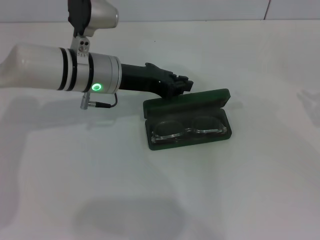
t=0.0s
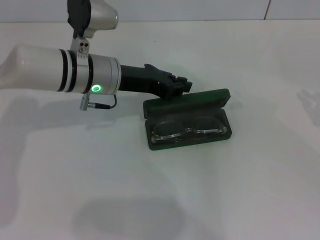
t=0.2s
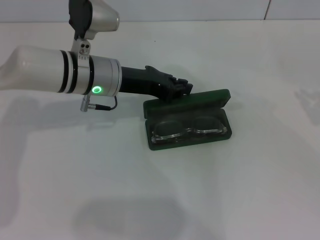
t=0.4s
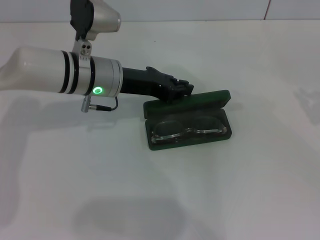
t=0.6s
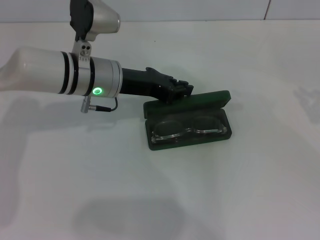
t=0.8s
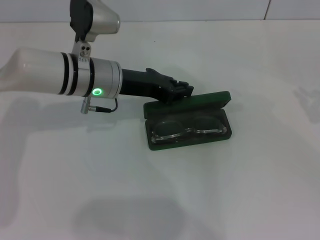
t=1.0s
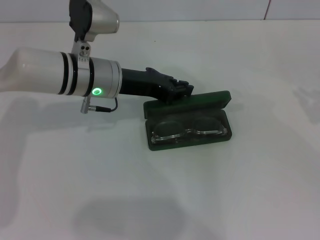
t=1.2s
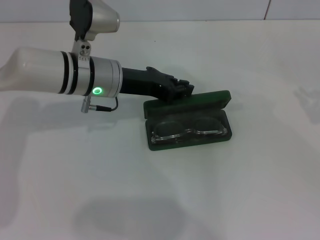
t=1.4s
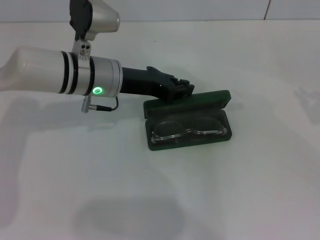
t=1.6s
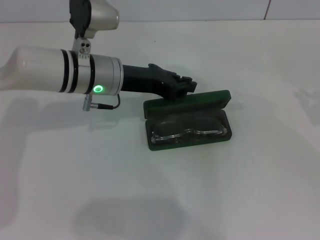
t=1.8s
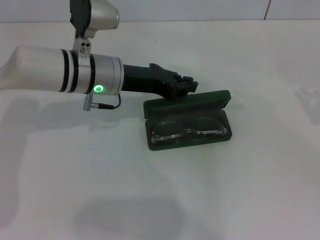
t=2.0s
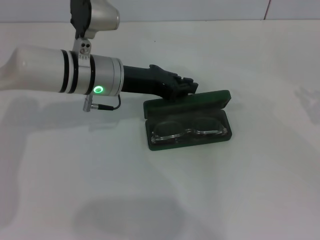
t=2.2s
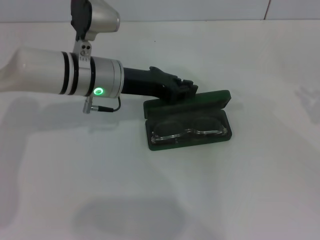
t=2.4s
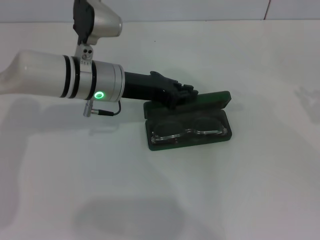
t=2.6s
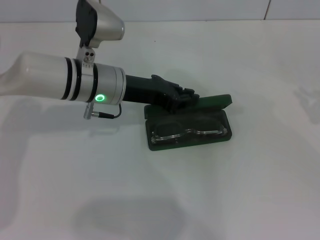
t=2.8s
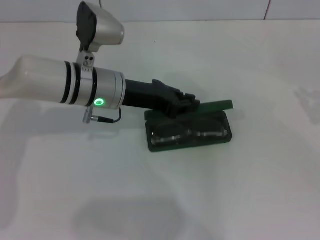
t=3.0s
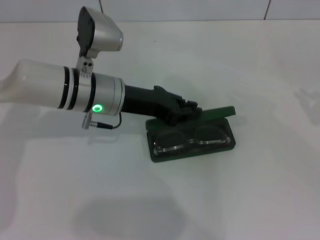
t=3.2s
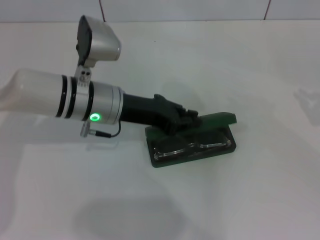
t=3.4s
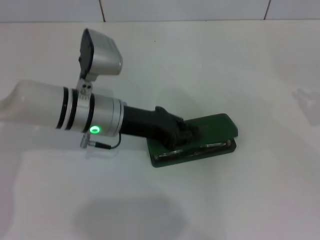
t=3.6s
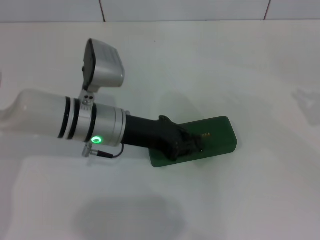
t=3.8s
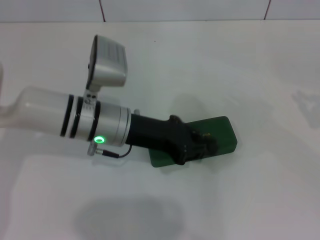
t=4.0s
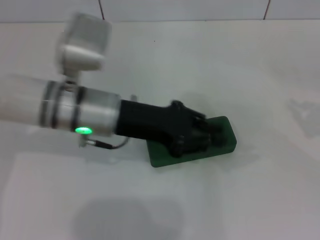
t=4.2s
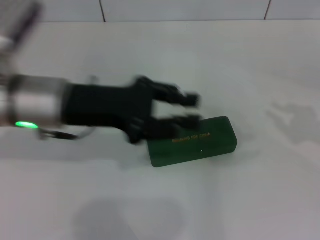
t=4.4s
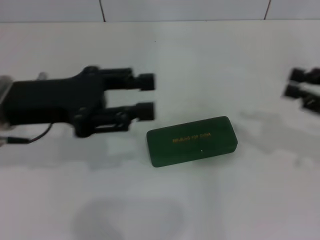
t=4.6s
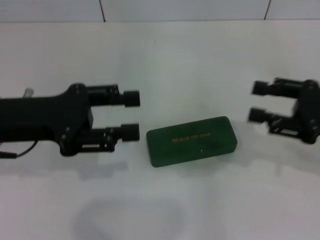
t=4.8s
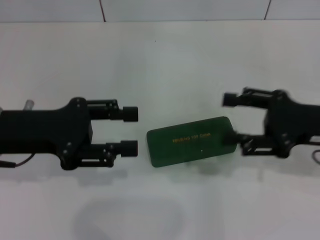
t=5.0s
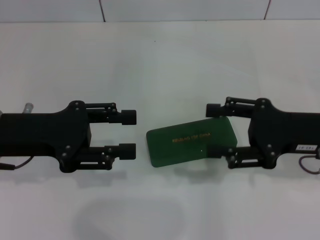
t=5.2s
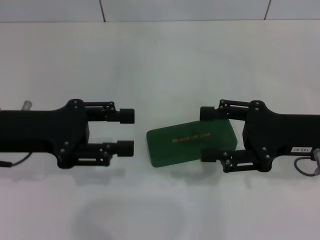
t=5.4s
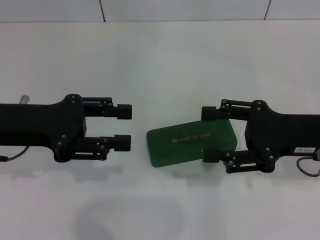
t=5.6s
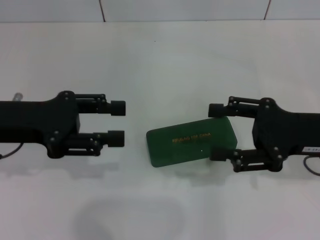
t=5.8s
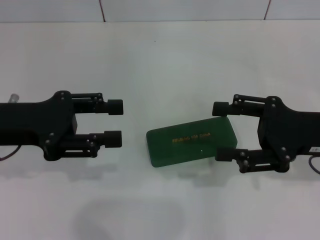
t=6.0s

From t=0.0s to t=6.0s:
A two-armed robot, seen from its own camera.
Step, from t=0.0s to t=4.0s: Close the glasses case with your left hand.
From t=0.0s to t=1.6s: The two grippers keep their place.
From t=1.6s to t=3.0s: There are only small adjustments of the grippers.
From t=3.0s to t=4.4s: The left gripper is displaced backward, upward and to the left by roughly 10 cm.
From t=4.4s to t=6.0s: Both grippers move to the left, about 10 cm. The right gripper opens, while the left gripper opens.

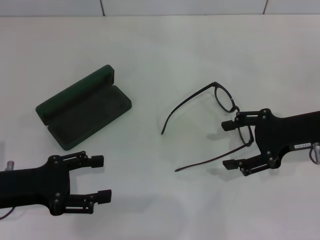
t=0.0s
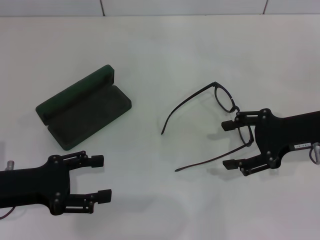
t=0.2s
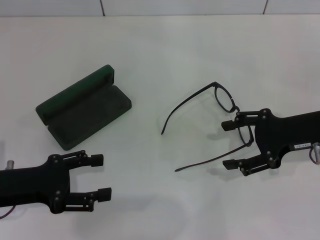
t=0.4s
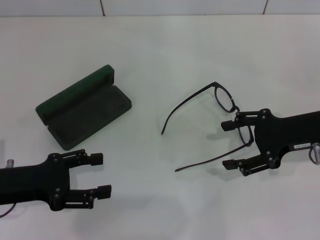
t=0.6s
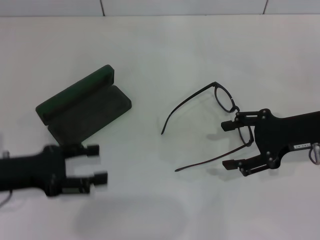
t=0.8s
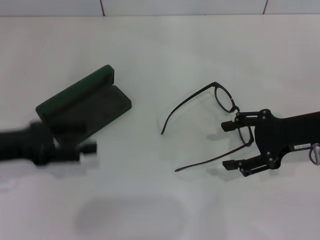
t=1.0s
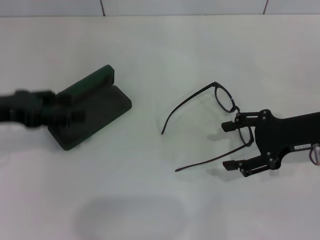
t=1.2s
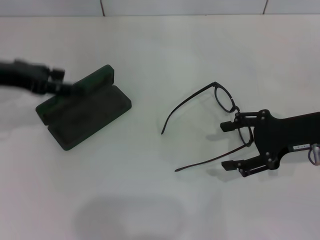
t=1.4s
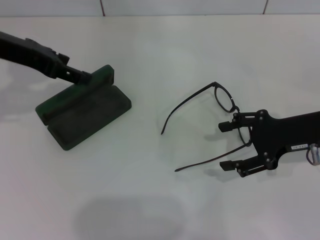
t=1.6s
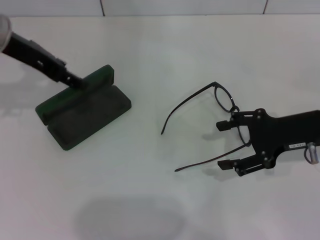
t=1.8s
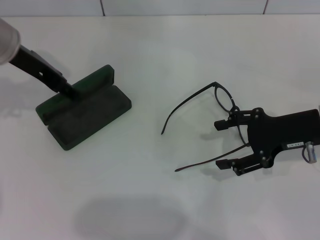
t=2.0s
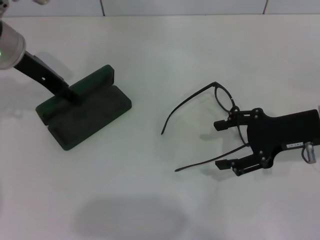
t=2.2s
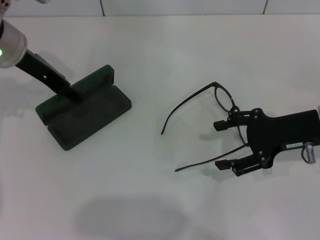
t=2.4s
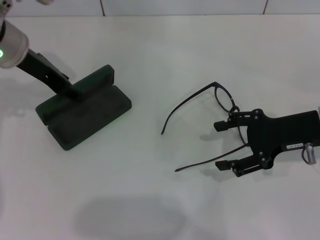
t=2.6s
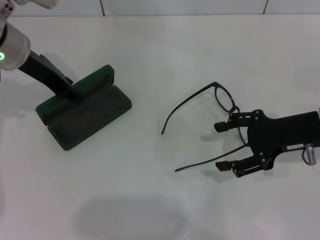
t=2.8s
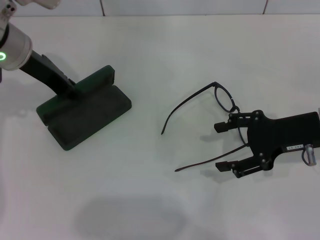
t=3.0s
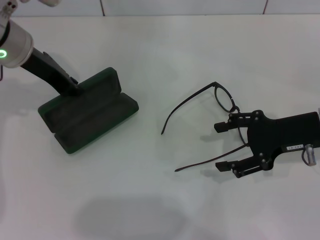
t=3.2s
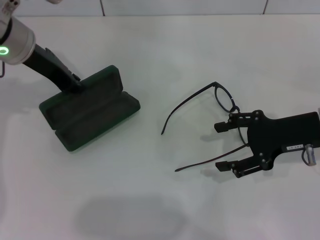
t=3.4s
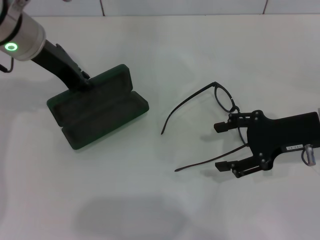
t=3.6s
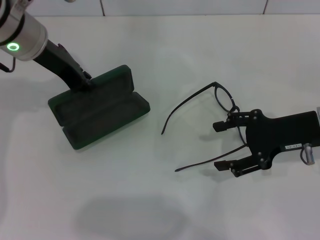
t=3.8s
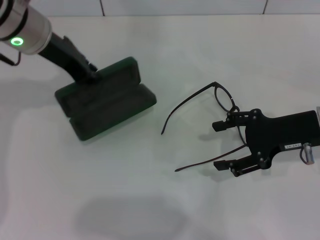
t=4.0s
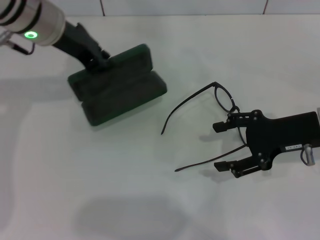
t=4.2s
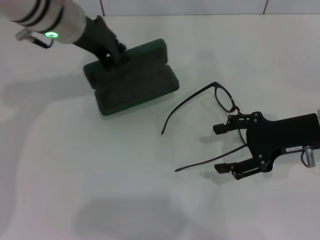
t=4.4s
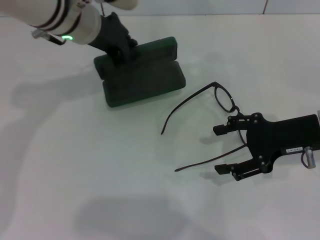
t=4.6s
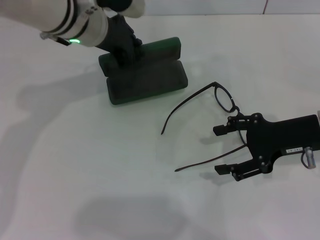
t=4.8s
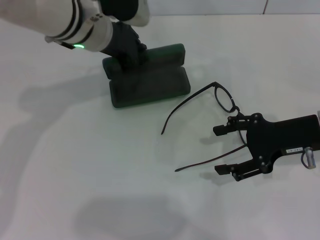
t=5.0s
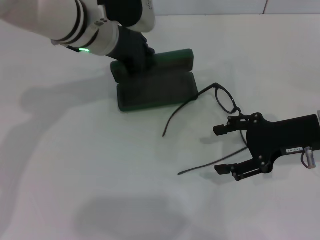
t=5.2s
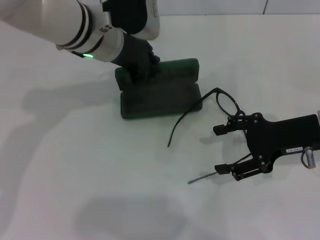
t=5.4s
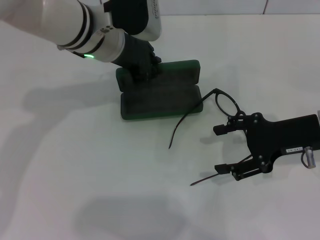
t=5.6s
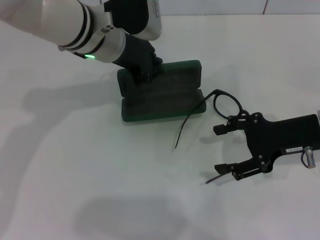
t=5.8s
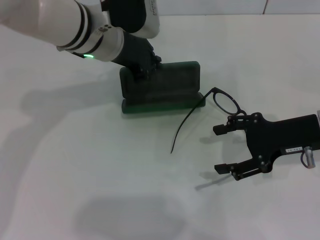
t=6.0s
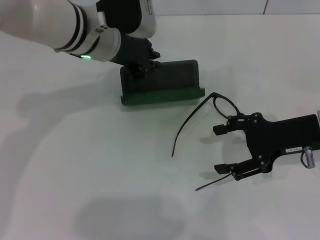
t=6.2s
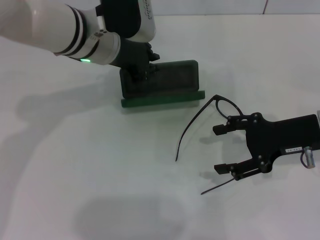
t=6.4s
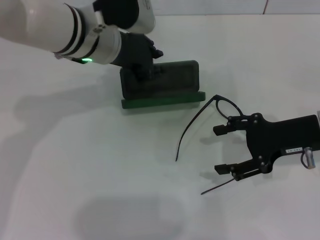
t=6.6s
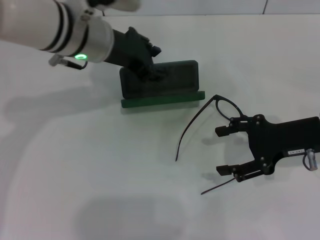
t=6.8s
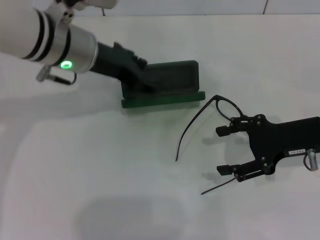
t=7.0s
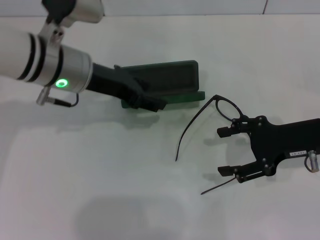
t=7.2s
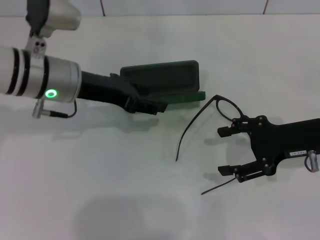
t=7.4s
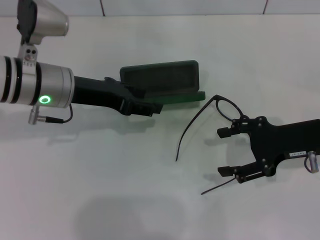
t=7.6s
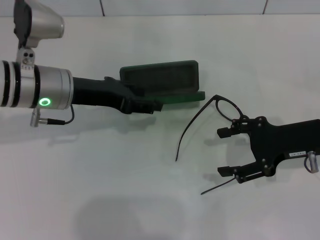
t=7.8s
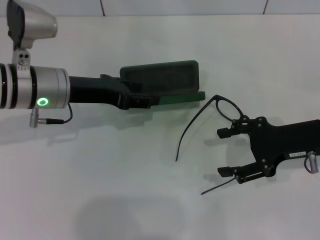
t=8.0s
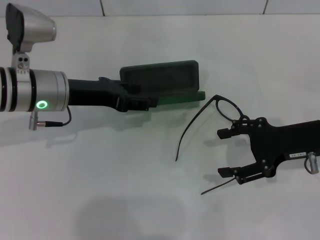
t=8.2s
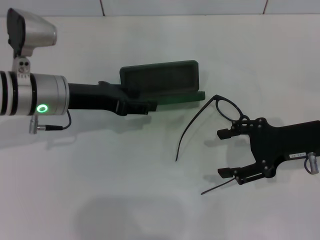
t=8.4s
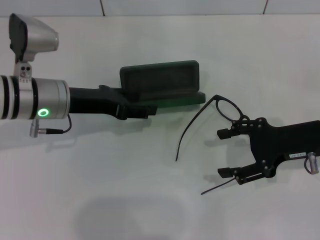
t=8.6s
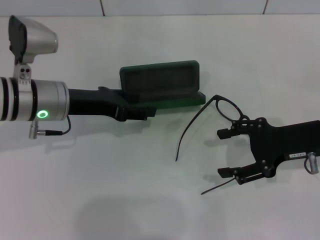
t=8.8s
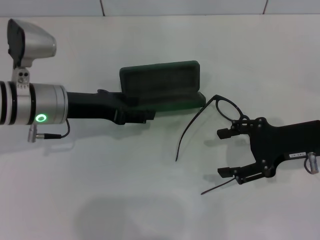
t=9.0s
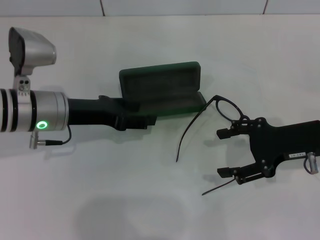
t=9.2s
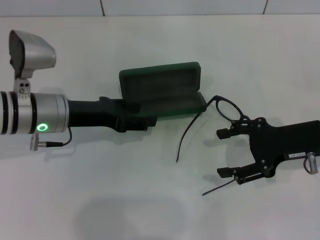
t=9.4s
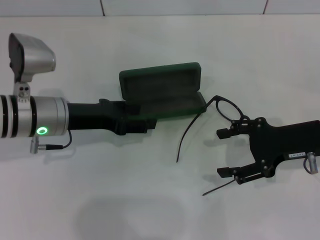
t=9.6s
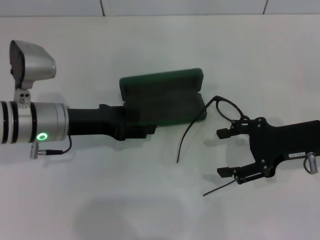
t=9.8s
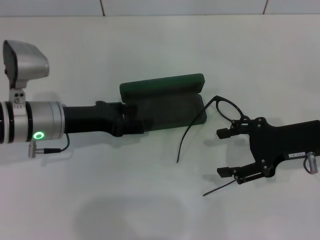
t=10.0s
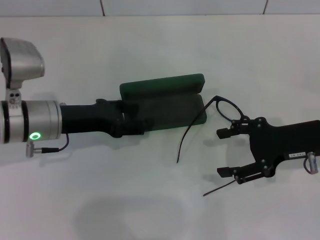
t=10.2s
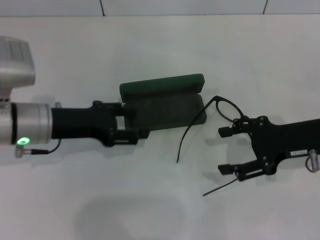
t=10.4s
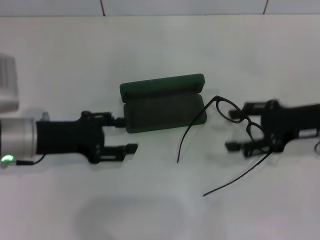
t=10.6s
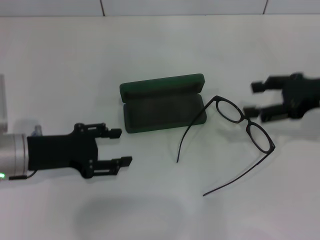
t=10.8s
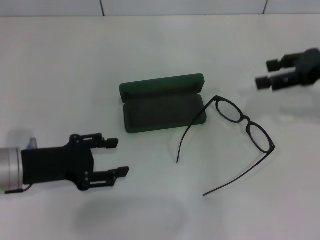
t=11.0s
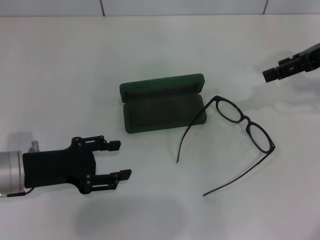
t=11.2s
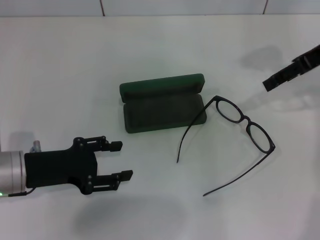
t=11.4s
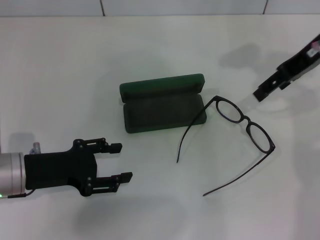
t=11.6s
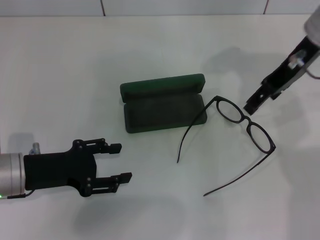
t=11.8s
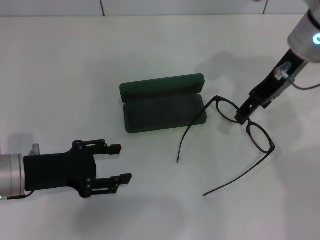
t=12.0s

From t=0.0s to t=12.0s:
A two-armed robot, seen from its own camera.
Step, from t=0.0s to t=3.2s: Grab the glasses case with your left hand.
Step, from t=3.4s to t=10.4s: Place the glasses case in the center of the table with your left hand.
From t=0.0s to t=1.6s: The left gripper is displaced upward and forward by about 20 cm.
From t=1.6s to t=3.0s: The left gripper changes place by about 5 cm, and closes.
From t=3.0s to t=4.4s: The left gripper shifts some 5 cm to the right, and closes its fingers.
From t=4.4s to t=6.0s: The left gripper moves roughly 5 cm.
From t=6.0s to t=7.6s: The left gripper goes some 10 cm to the left, and opens up.
From t=7.6s to t=9.0s: There are only small adjustments of the grippers.
From t=9.0s to t=10.4s: The grippers move only a little.
From t=10.4s to t=12.0s: The right gripper heads upward, forward and to the left, covering roughly 15 cm. The left gripper heads backward, covering some 5 cm.

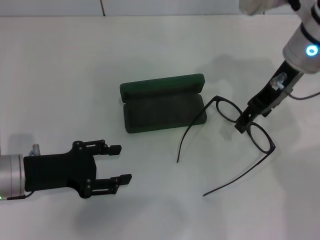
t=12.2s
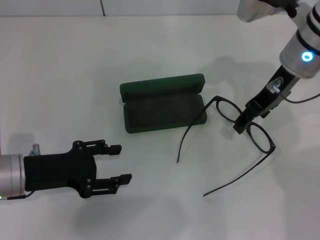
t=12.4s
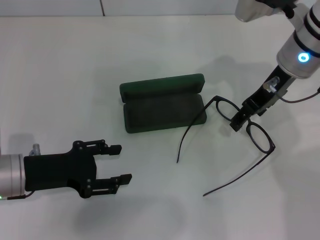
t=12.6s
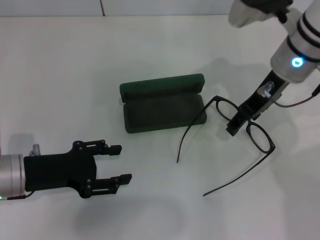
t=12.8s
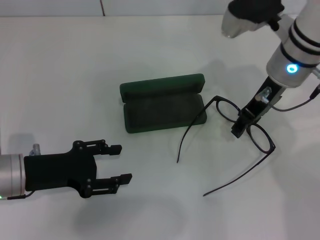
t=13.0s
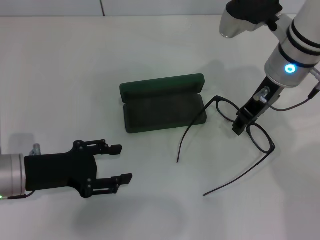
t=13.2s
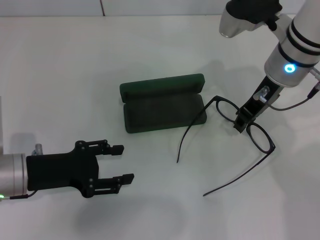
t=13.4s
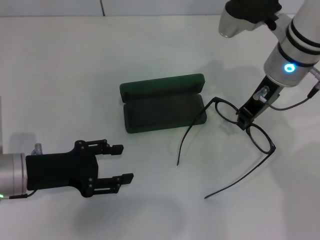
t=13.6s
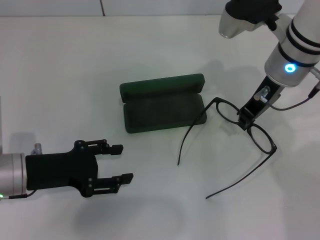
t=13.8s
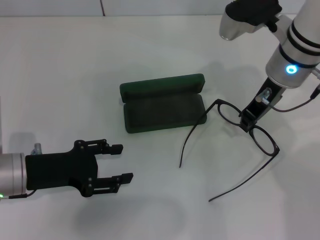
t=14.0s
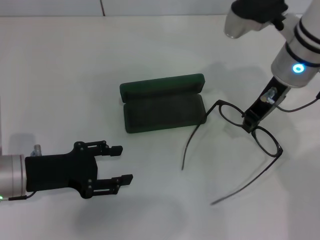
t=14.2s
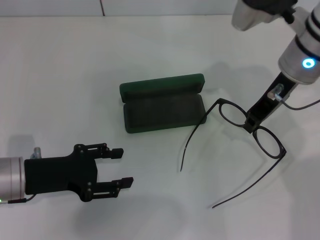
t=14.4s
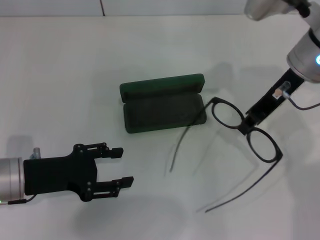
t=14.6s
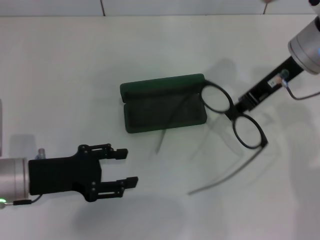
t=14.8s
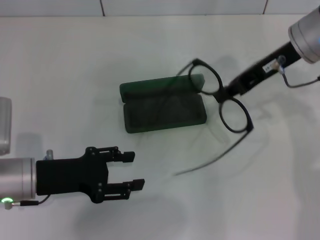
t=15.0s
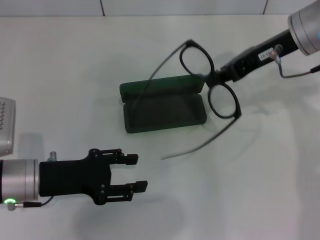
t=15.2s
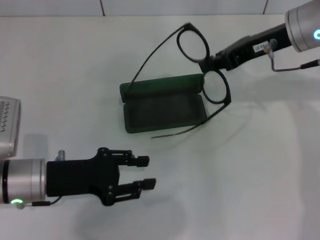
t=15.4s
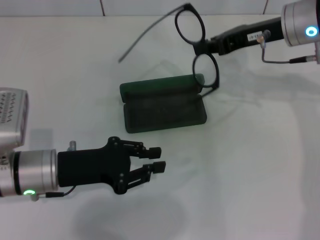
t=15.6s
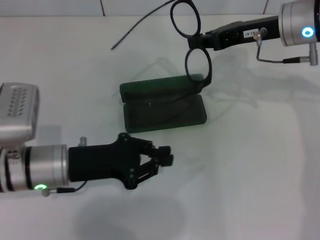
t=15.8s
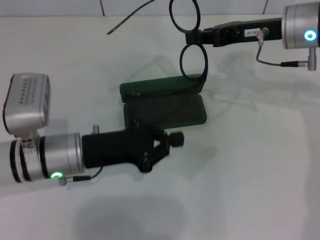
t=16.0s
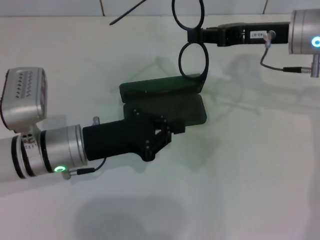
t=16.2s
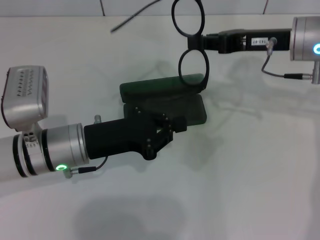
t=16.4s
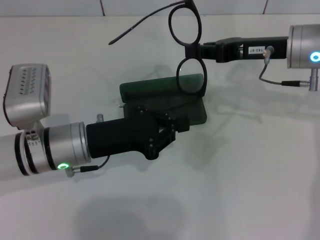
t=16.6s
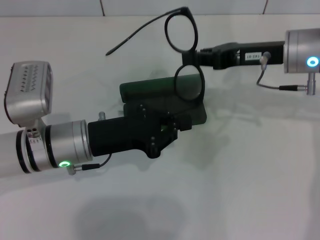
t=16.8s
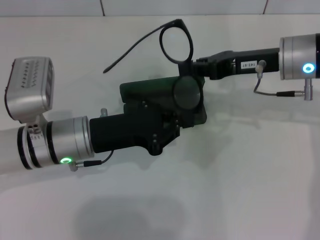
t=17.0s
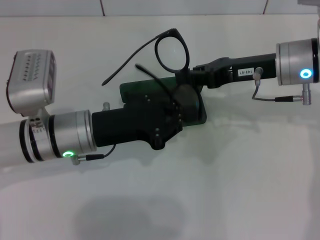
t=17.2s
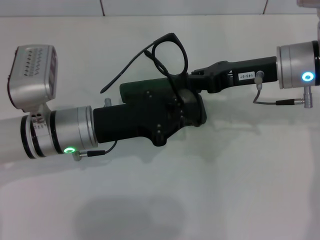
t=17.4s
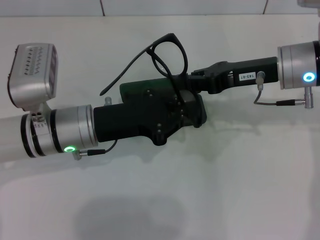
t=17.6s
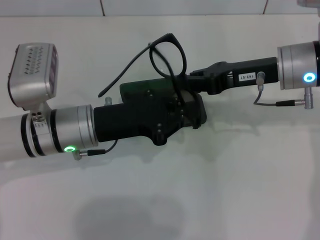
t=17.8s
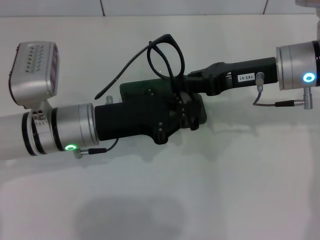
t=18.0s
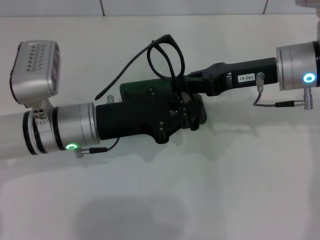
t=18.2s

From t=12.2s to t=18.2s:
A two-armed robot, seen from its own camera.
From t=12.2s to t=13.8s: The right gripper closes its fingers.
From t=13.8s to t=15.2s: The right gripper moves about 5 cm.
From t=15.2s to t=16.6s: The left gripper is displaced to the right by roughly 5 cm, and closes. The right gripper goes about 5 cm downward.
